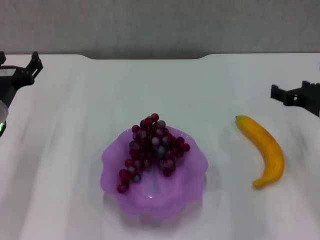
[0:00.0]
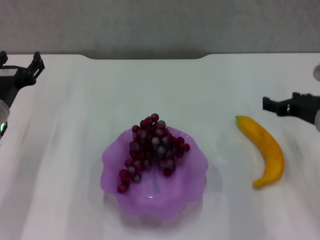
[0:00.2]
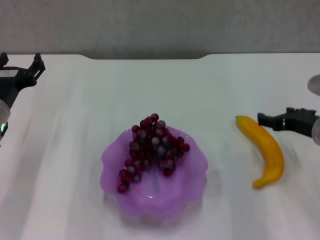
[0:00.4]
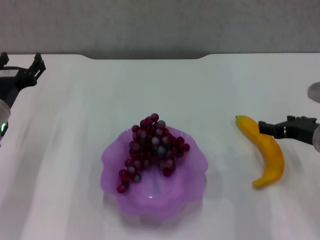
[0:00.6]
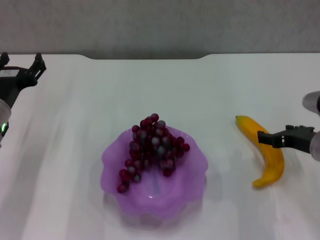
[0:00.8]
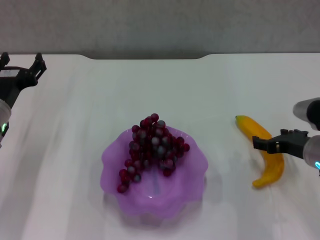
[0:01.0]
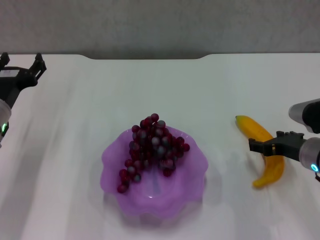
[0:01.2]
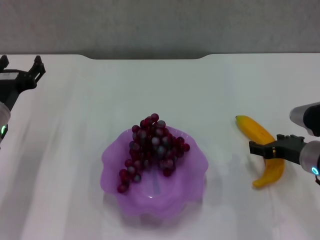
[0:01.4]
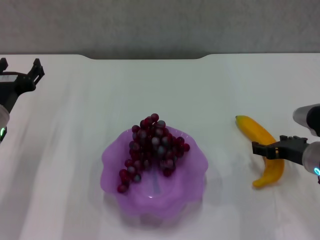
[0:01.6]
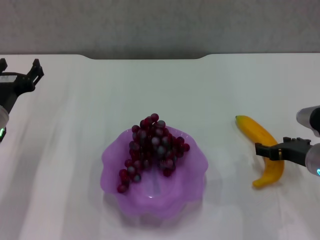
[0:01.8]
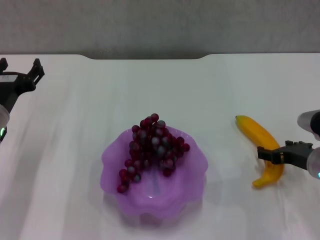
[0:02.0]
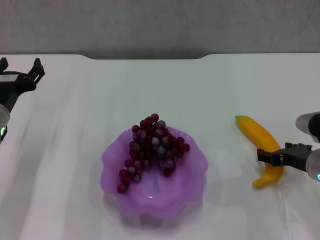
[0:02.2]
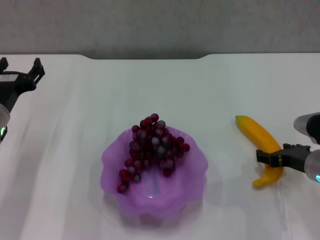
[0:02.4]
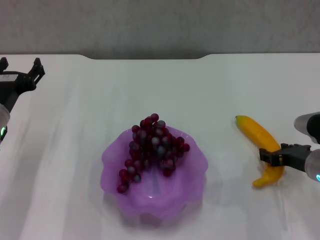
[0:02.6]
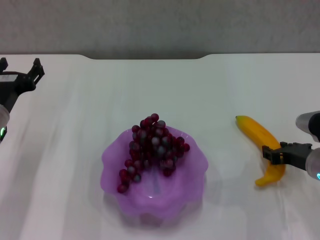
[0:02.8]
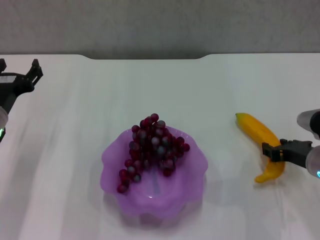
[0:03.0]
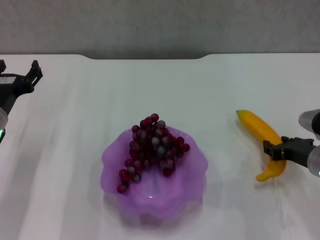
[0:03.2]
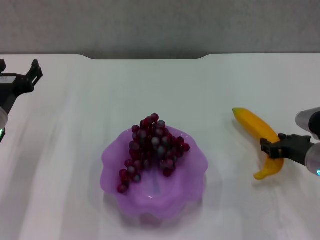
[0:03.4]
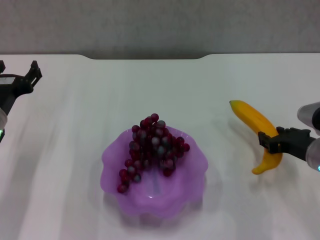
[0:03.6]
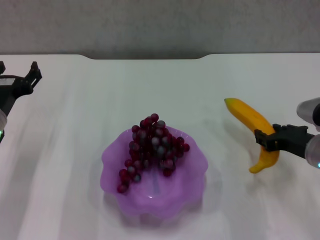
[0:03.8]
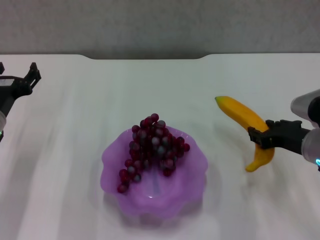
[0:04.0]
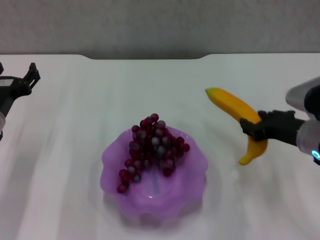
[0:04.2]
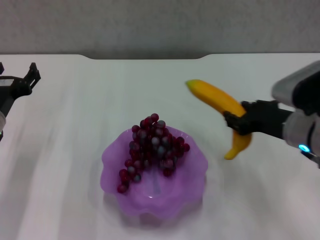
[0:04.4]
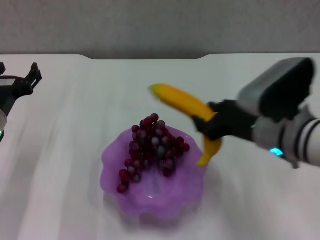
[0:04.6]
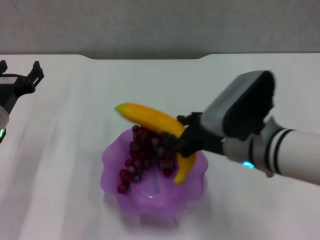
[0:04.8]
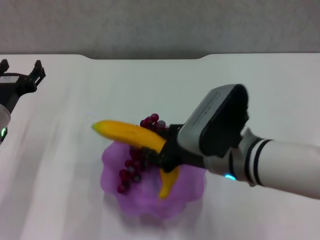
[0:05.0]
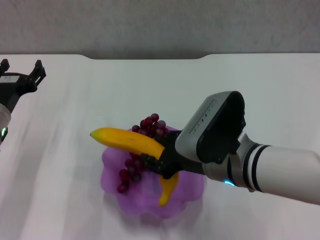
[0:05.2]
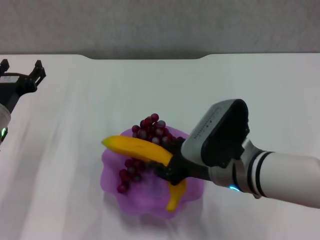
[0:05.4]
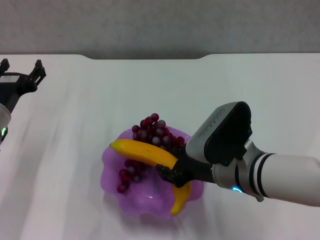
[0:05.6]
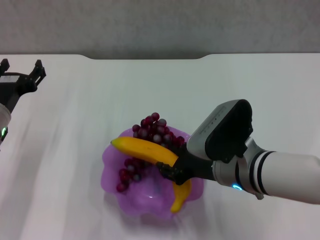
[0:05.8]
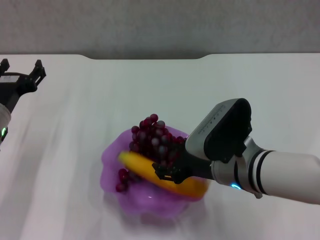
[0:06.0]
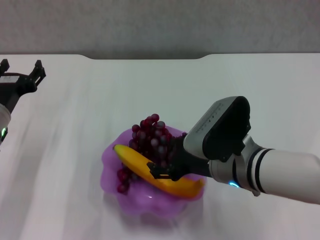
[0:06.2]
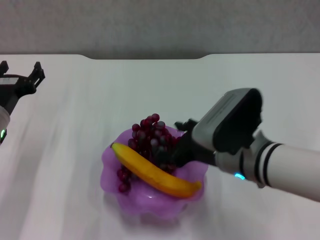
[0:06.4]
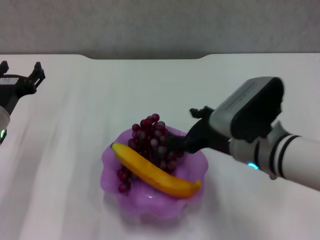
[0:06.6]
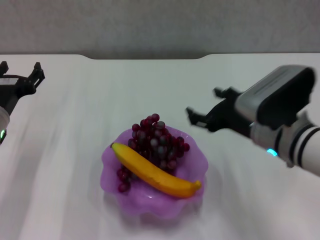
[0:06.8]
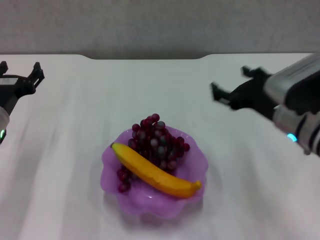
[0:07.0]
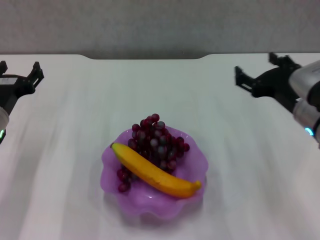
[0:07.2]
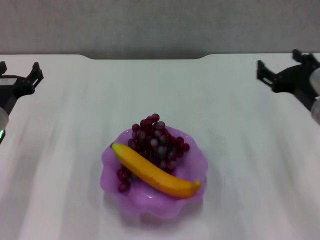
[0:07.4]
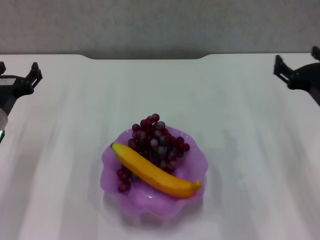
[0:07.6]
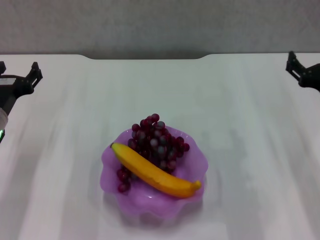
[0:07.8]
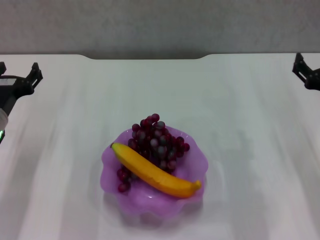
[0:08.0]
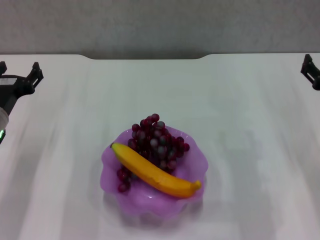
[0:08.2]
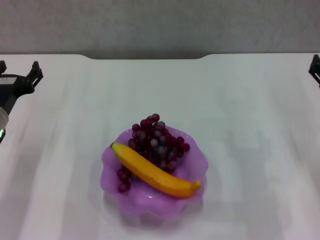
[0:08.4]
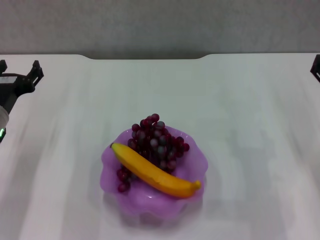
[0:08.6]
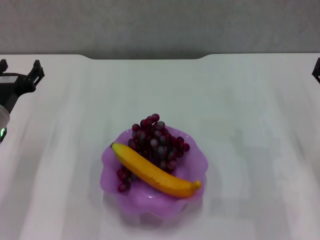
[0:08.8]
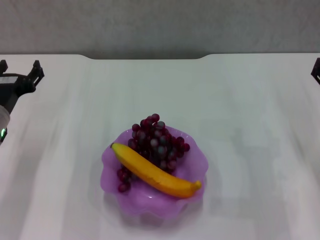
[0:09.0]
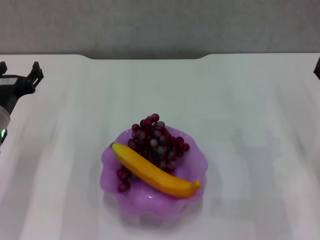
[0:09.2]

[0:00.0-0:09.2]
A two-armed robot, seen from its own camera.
Step, 0:00.0 to 0:02.8: Grasp the banana with right gripper.
Step, 0:03.0 to 0:05.8: Place the banana in the purple plate with right gripper.
0:00.0 to 0:01.6: The right gripper travels downward by roughly 5 cm.
0:01.6 to 0:03.0: The right gripper closes.
0:03.0 to 0:04.6: The right gripper shifts roughly 15 cm to the left and upward.
0:04.6 to 0:06.2: The right gripper heads to the left, covering about 5 cm, and opens its fingers.
0:06.2 to 0:07.6: The right gripper is displaced to the right by approximately 15 cm.
0:07.6 to 0:09.2: The right gripper ends up some 5 cm from where it was.

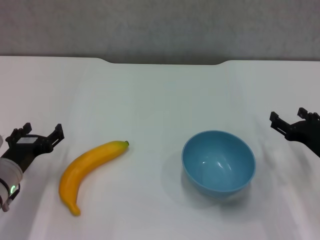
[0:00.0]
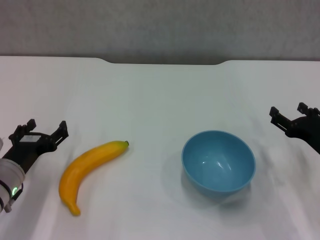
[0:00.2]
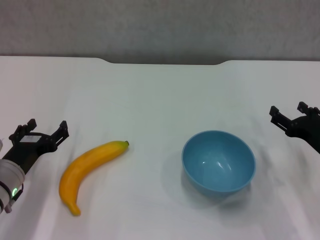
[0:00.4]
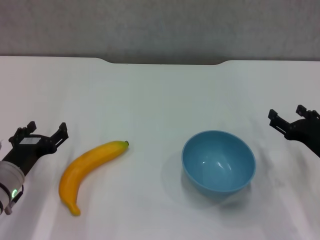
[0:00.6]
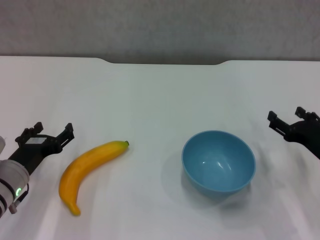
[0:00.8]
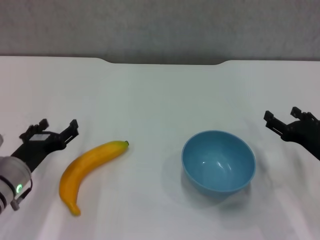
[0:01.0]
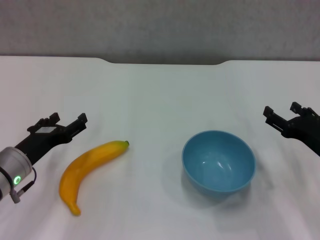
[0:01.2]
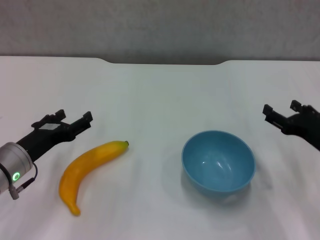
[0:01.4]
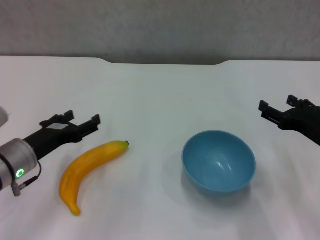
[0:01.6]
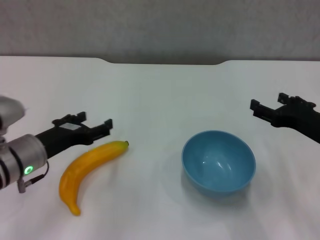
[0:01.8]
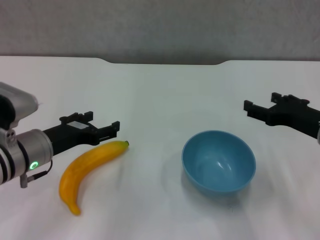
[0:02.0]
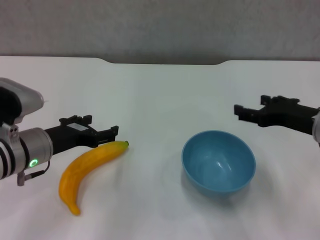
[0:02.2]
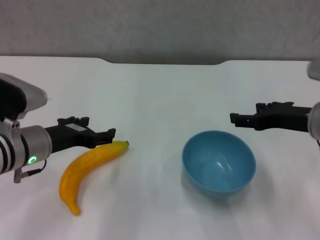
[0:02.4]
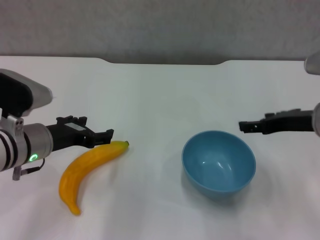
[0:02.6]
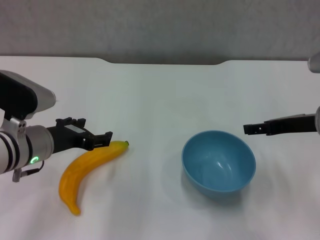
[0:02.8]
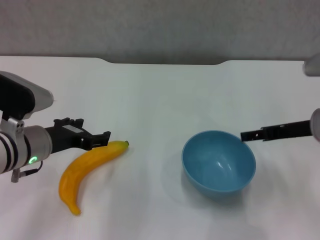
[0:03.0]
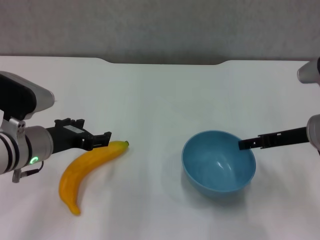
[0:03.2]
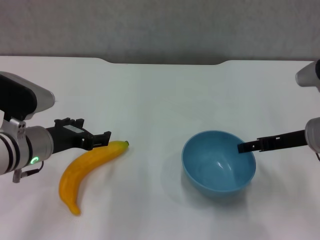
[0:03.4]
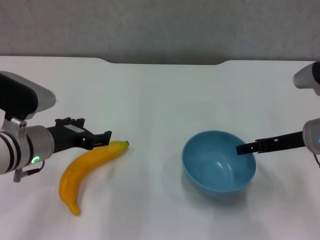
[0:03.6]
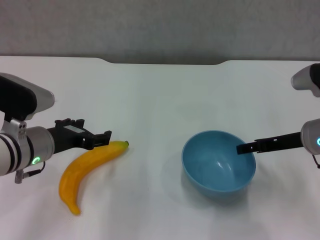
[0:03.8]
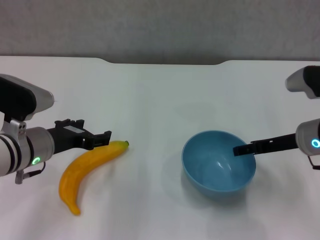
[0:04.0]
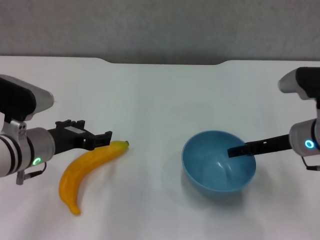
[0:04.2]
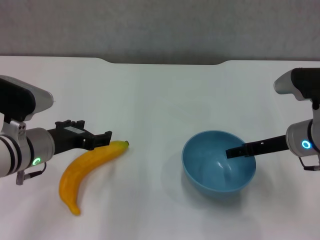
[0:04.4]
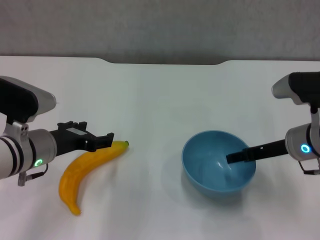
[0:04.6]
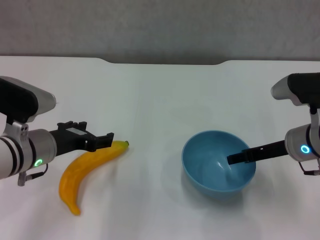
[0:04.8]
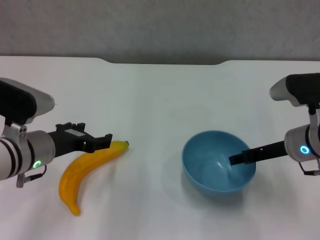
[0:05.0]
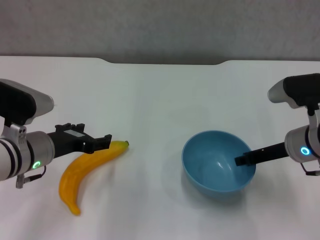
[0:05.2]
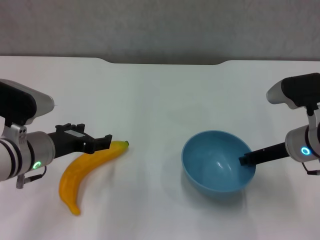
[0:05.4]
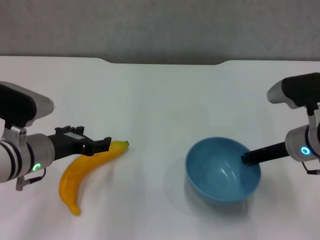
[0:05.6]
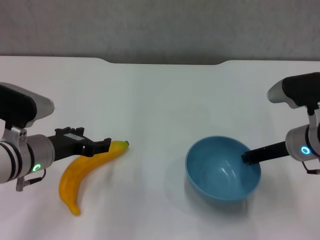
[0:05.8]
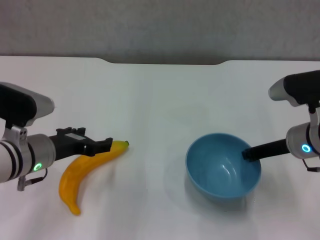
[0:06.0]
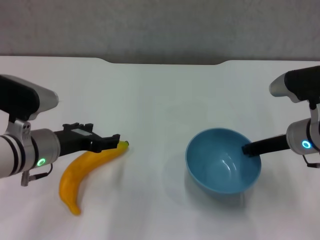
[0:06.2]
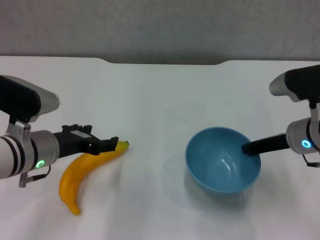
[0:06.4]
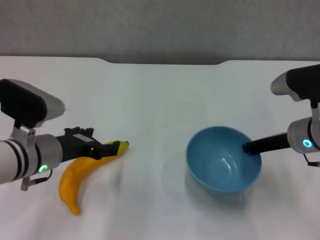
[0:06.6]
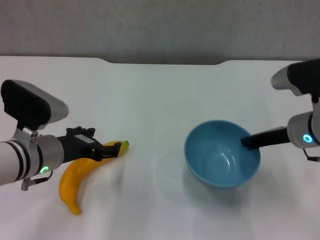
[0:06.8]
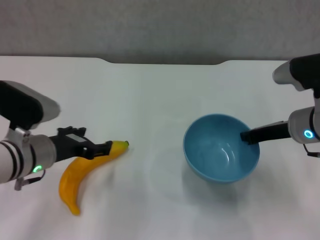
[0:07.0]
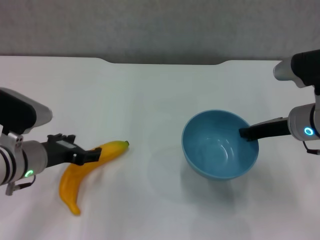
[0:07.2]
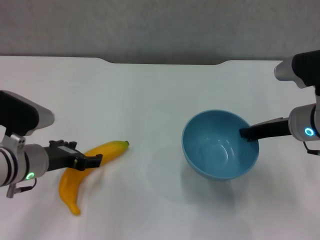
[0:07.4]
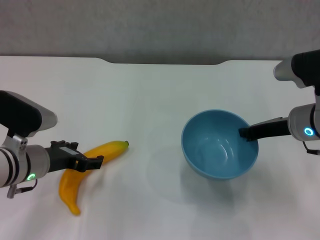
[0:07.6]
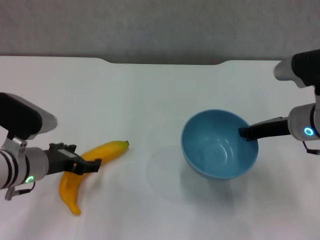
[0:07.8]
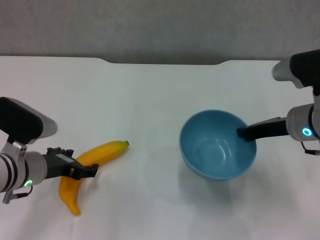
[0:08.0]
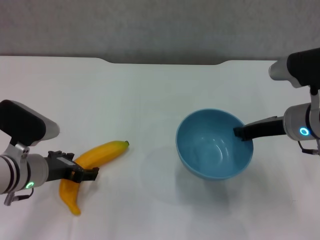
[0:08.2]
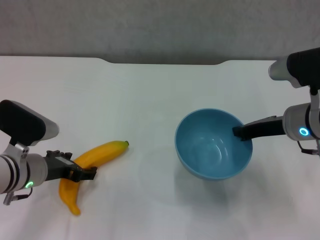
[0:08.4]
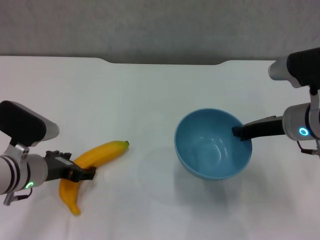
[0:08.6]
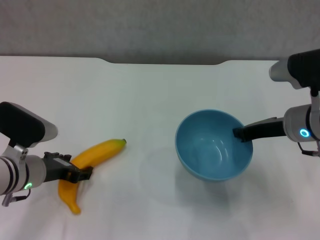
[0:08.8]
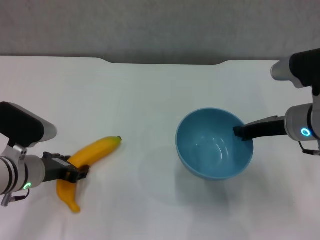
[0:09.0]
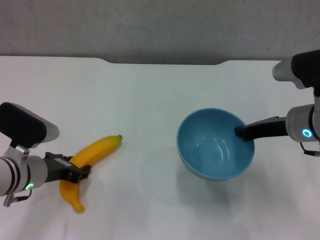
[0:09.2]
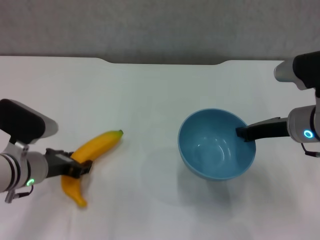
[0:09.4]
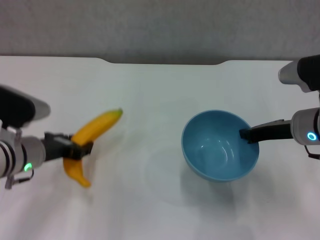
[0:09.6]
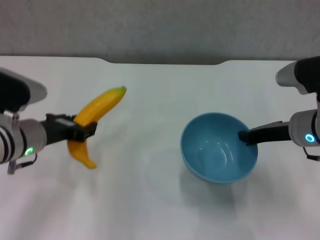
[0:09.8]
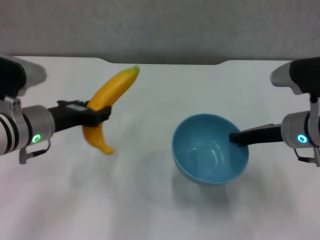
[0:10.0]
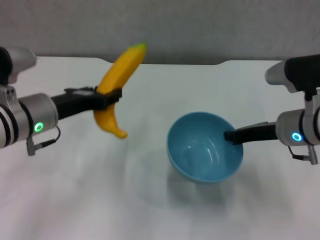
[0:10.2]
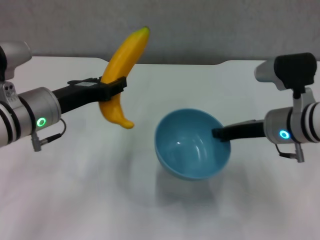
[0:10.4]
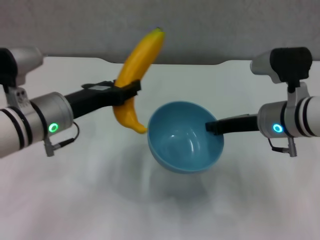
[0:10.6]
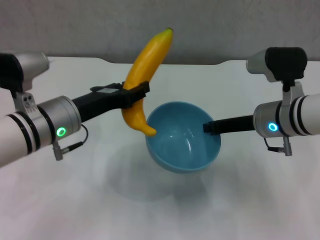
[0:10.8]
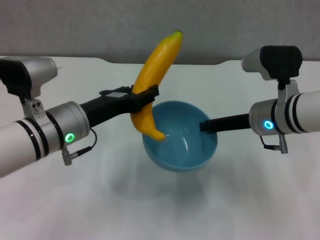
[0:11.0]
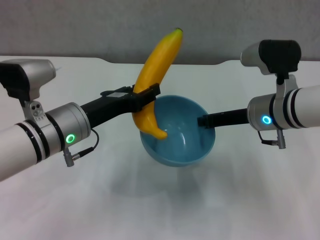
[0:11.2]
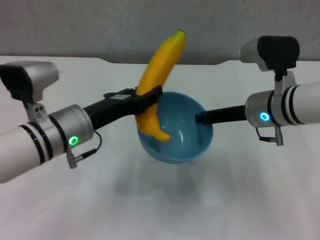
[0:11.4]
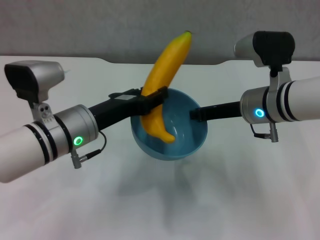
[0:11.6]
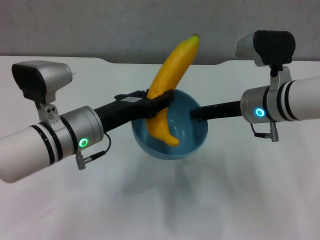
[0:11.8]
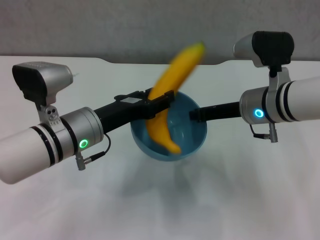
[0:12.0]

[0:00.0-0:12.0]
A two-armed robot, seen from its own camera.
Step, 0:00.0 to 0:05.4: Grasp the blue bowl with right gripper.
Step, 0:05.8 to 0:07.0: Lift the blue bowl with right gripper.
Step, 0:07.2 to 0:09.0: Grasp the banana with left gripper.
0:00.0 to 0:01.6: The right gripper heads upward, covering some 5 cm.
0:01.6 to 0:03.0: The right gripper changes place by roughly 5 cm. The left gripper changes place by approximately 5 cm.
0:03.0 to 0:04.4: The grippers move only a little.
0:04.4 to 0:06.0: The right gripper closes up.
0:06.0 to 0:09.0: The grippers make only small movements.
0:09.0 to 0:10.4: The left gripper moves upward, about 10 cm, and closes up.
0:10.4 to 0:12.0: The left gripper travels to the right by approximately 5 cm.

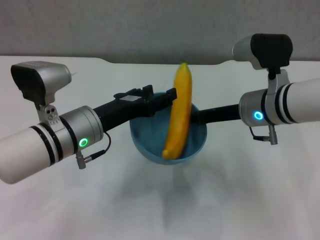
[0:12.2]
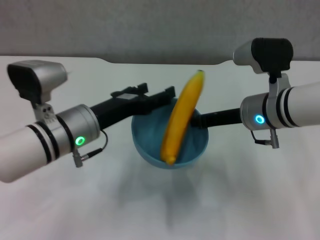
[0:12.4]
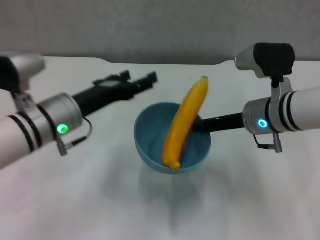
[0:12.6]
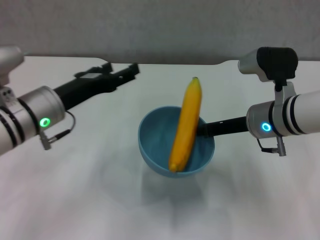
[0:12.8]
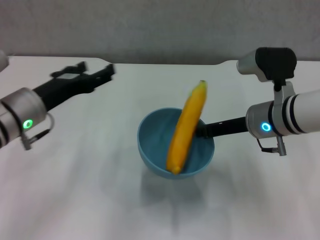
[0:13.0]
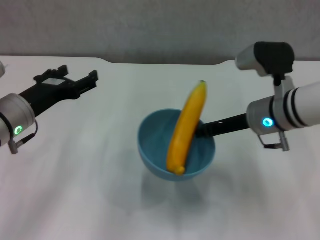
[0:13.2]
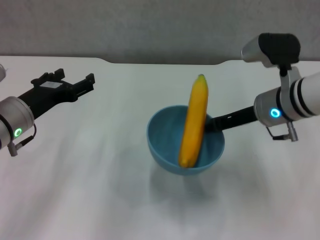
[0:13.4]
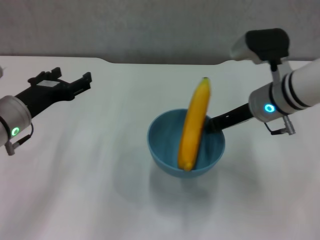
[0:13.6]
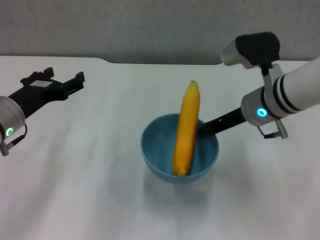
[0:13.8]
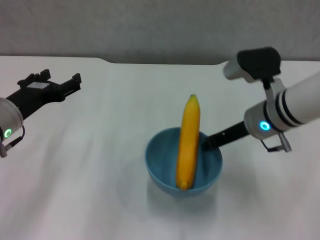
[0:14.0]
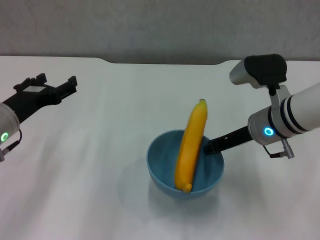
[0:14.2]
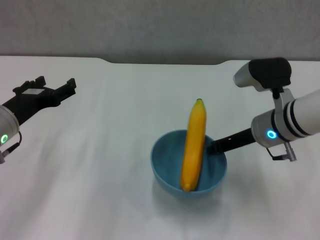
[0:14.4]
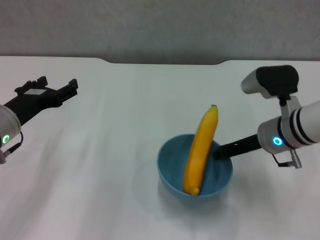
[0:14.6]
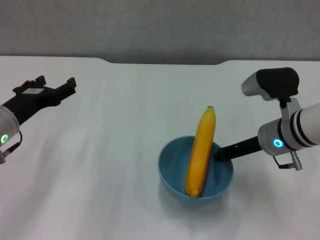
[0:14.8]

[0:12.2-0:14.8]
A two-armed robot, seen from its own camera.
0:12.2 to 0:13.4: The left gripper moves to the left, roughly 10 cm, and opens.
0:13.4 to 0:14.8: The right gripper shifts by some 5 cm.
